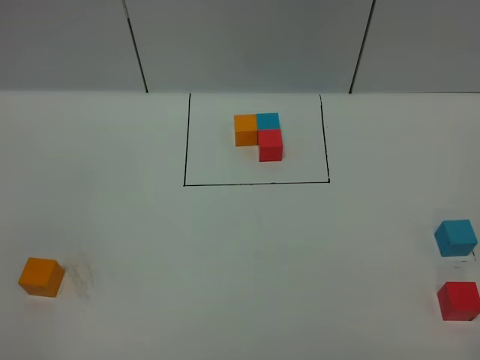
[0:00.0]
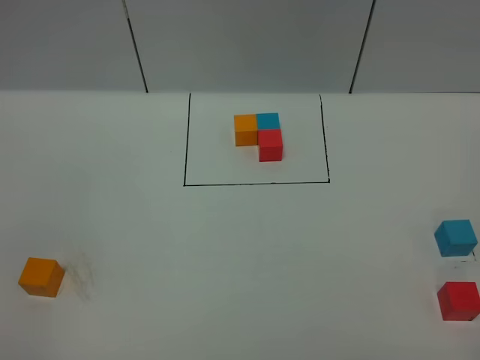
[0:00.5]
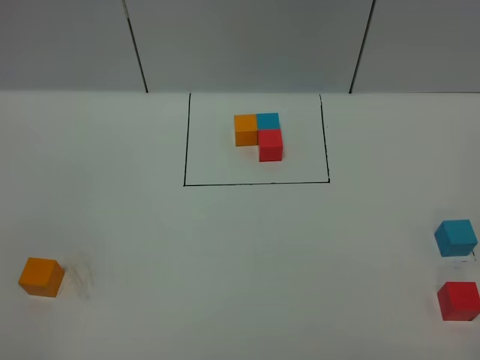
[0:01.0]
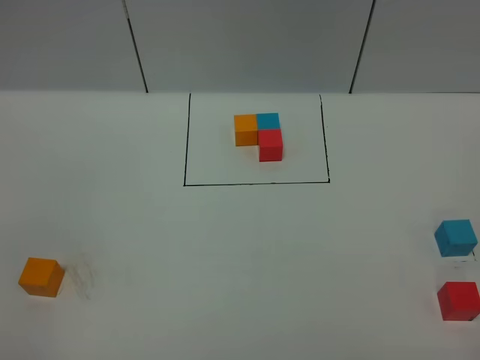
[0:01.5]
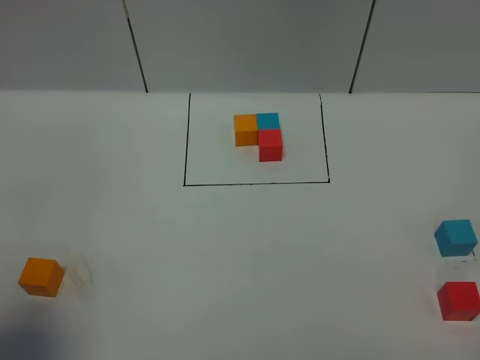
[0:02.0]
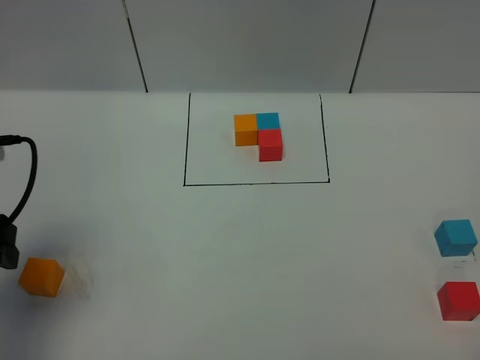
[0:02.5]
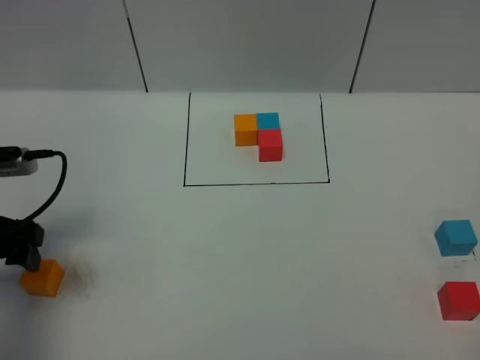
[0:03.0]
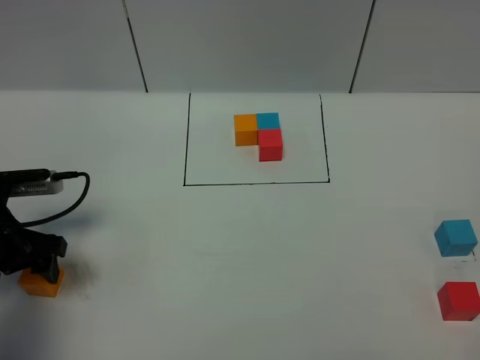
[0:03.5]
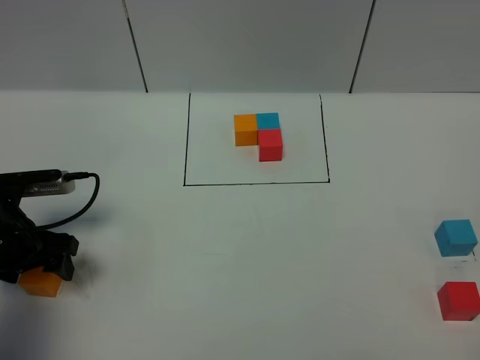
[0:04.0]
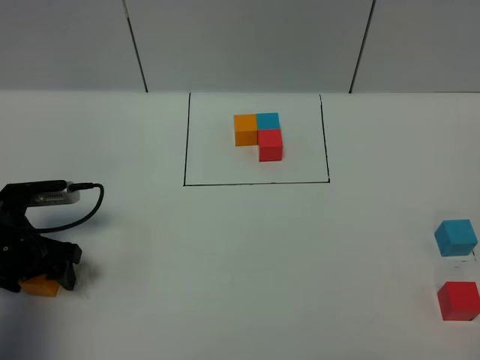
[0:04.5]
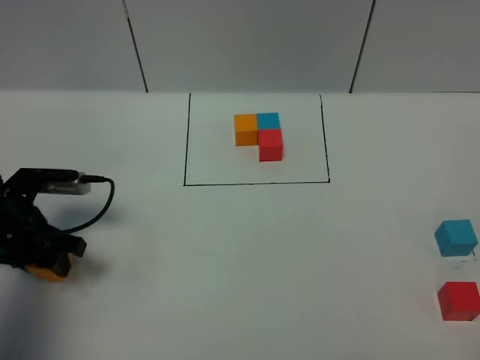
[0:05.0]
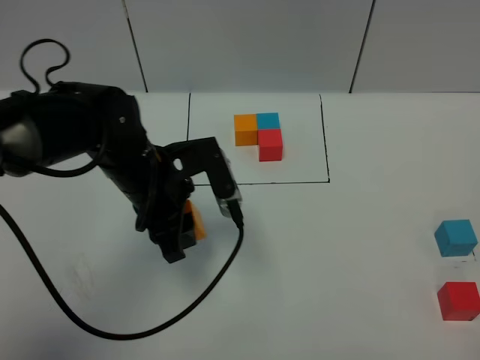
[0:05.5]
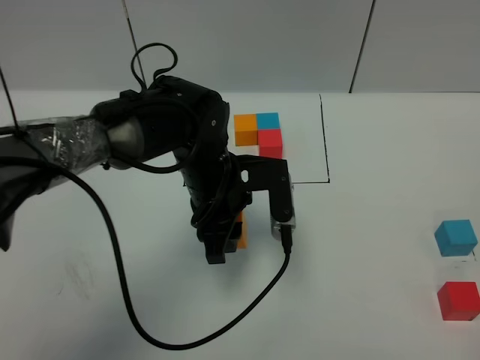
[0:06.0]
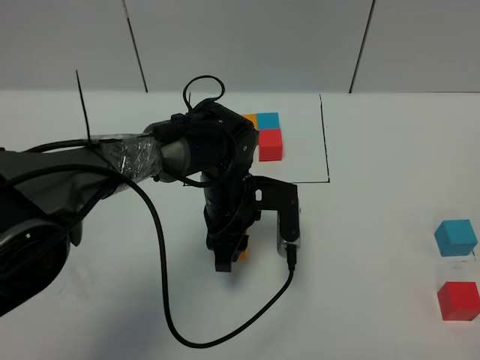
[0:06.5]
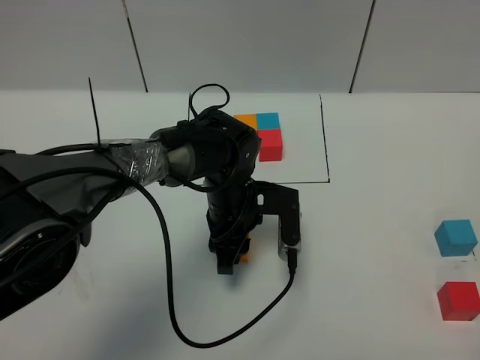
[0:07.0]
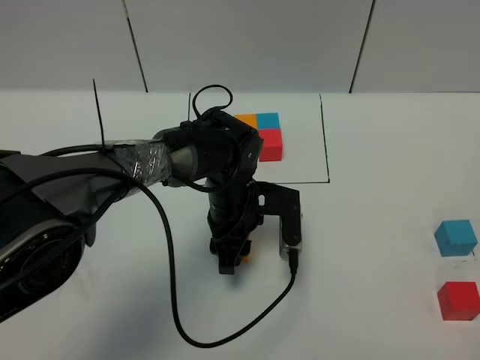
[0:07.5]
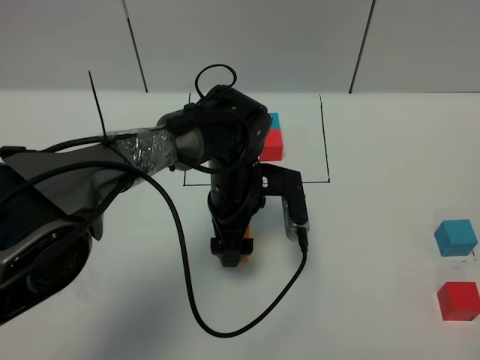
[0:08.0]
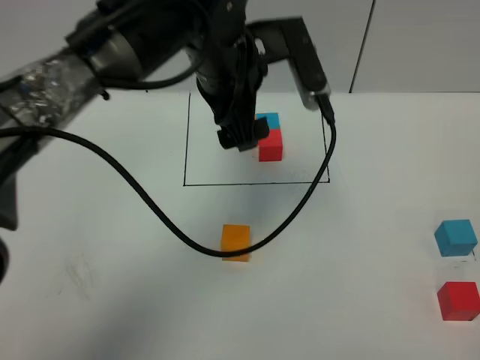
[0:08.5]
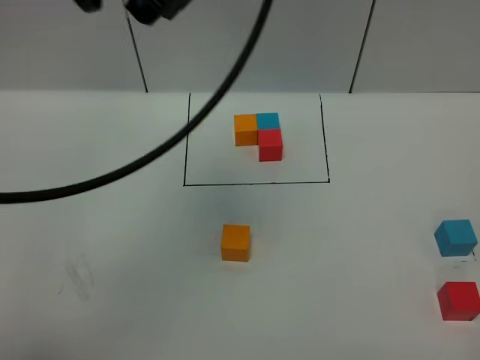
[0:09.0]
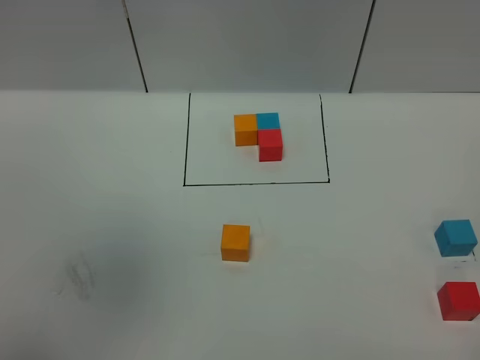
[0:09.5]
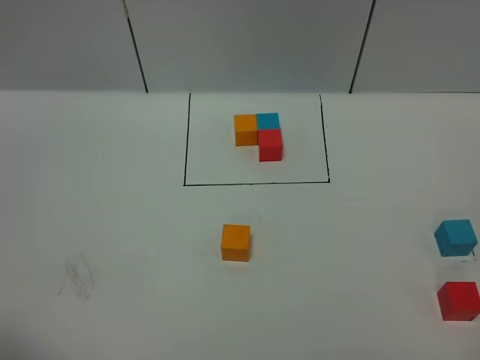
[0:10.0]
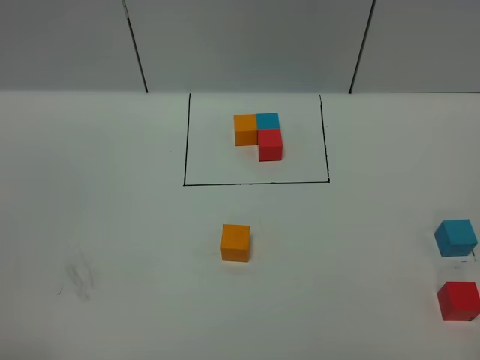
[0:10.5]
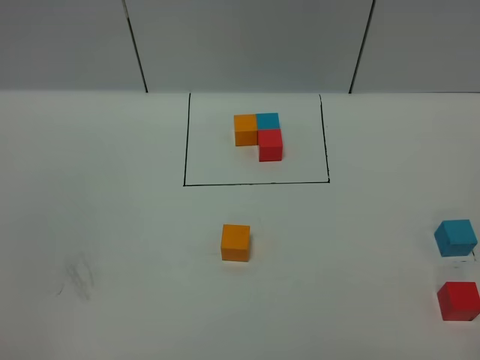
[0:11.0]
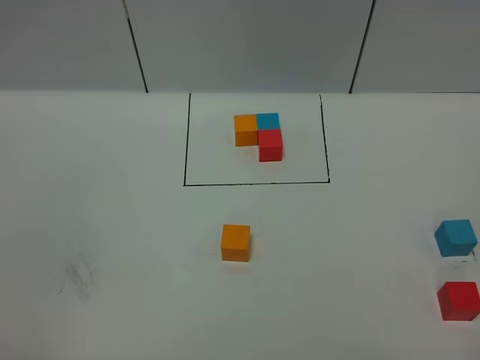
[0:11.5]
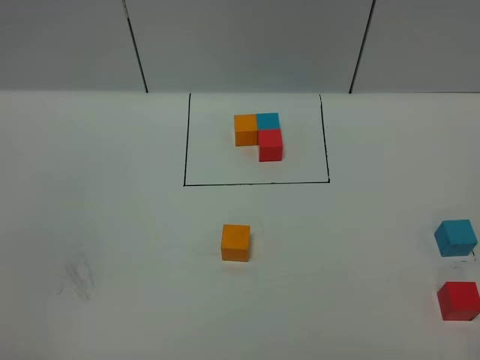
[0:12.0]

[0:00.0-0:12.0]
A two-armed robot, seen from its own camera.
Task of the whole recording: According to the building block template in front, assemble the scattered blocks together.
Step, 0:02.5 to 0:08.0: Put the orange cube in the center of the table.
0:00.0 to 0:02.0: The left gripper heads forward, covering some 10 cm, and opens up.
0:02.0 to 0:04.0: The left gripper is displaced downward and forward by approximately 25 cm.
0:04.0 to 0:06.0: The left gripper heads to the right, covering about 25 cm, and closes its fingers.
0:06.0 to 0:08.0: The left gripper moves some 5 cm, and opens its fingers.
0:08.0 to 0:10.0: The left gripper goes roughly 50 cm backward, to the left and upward.

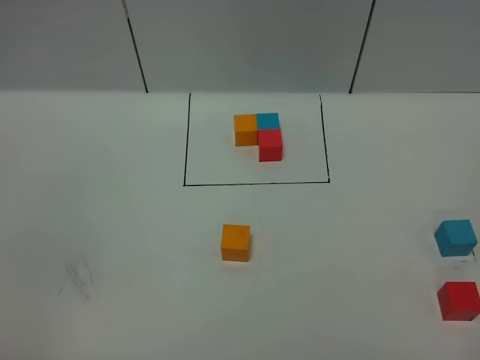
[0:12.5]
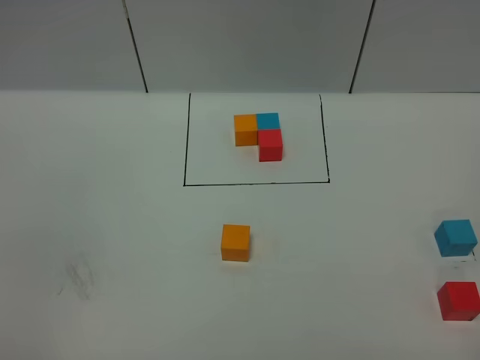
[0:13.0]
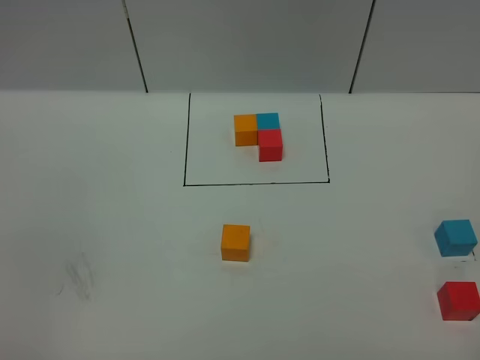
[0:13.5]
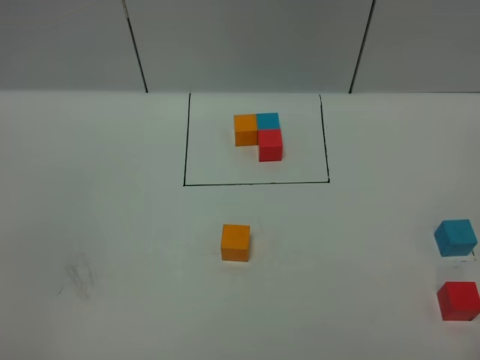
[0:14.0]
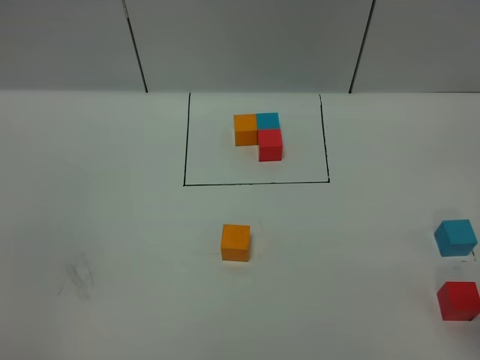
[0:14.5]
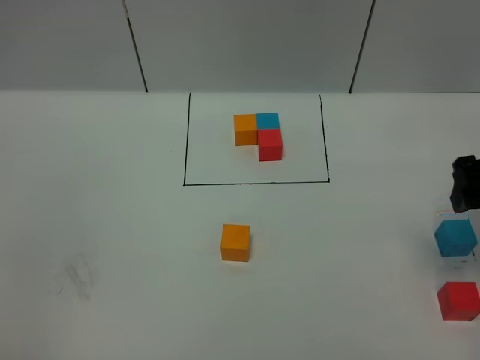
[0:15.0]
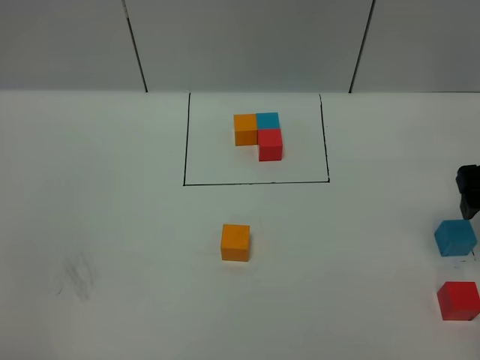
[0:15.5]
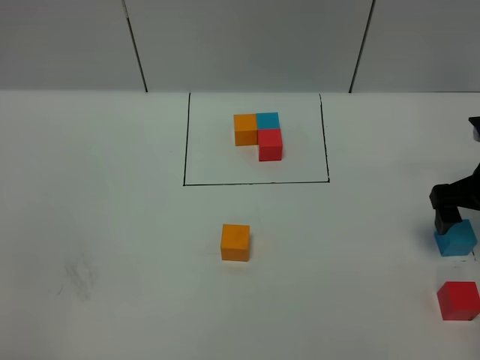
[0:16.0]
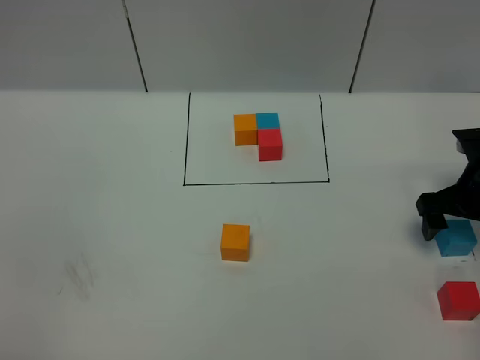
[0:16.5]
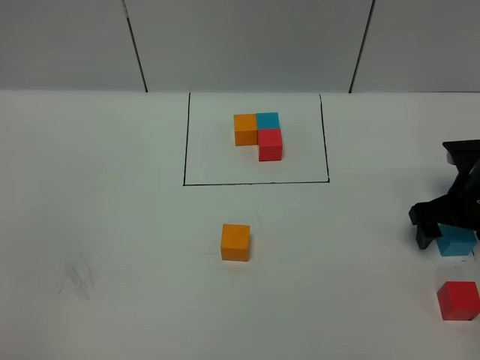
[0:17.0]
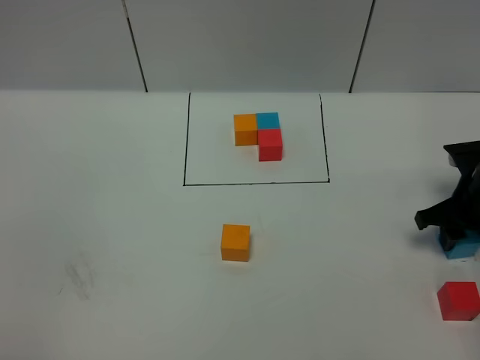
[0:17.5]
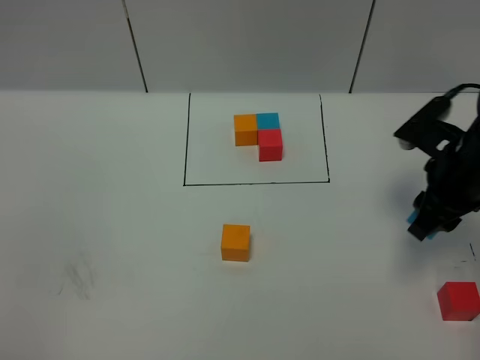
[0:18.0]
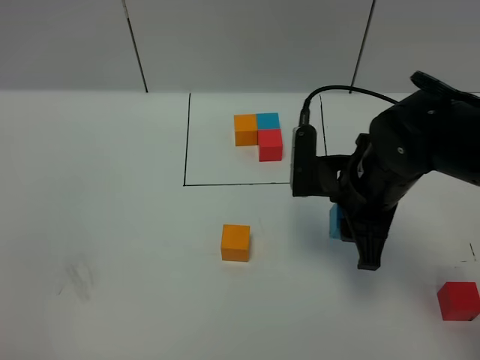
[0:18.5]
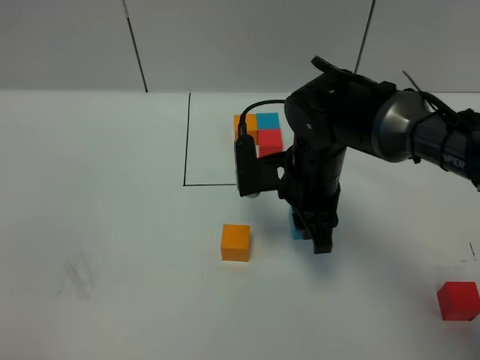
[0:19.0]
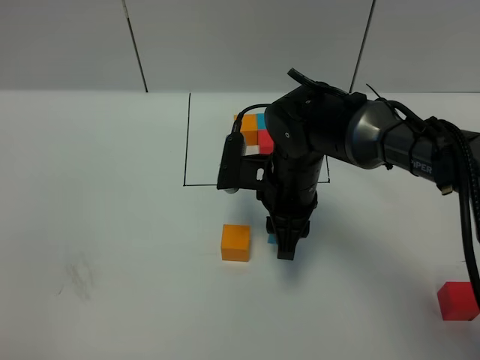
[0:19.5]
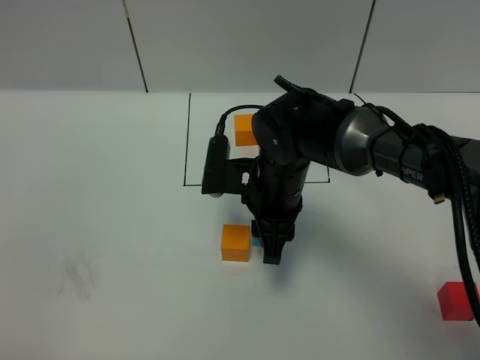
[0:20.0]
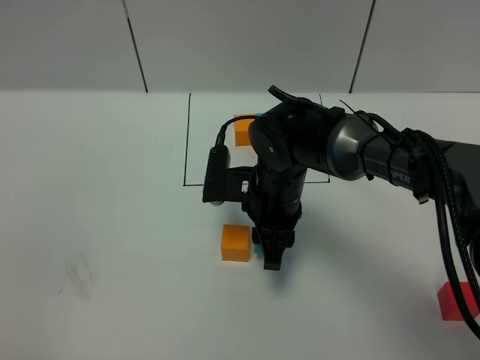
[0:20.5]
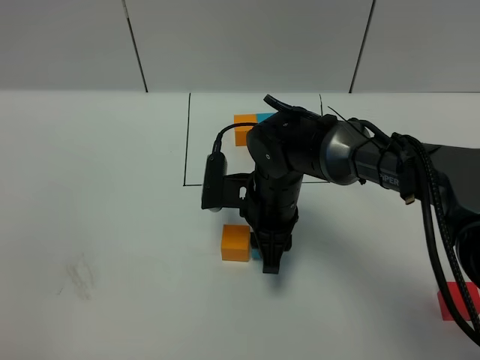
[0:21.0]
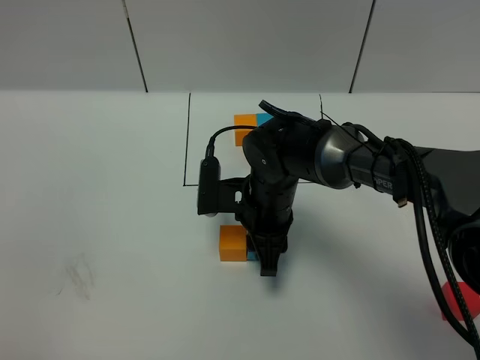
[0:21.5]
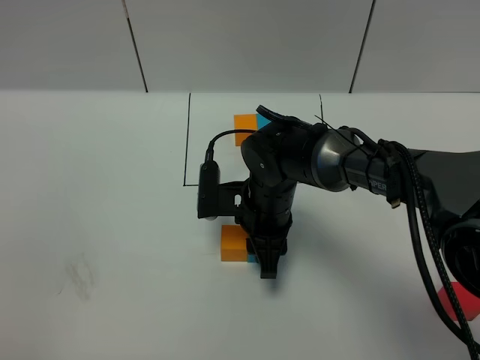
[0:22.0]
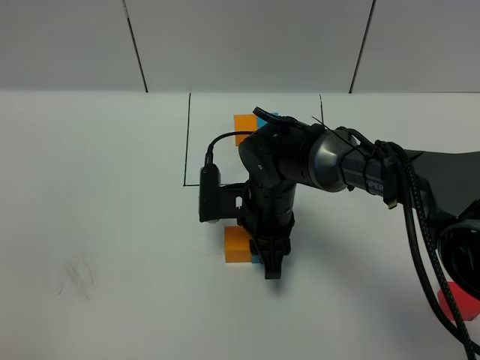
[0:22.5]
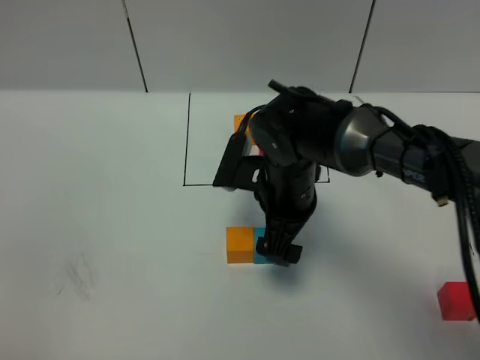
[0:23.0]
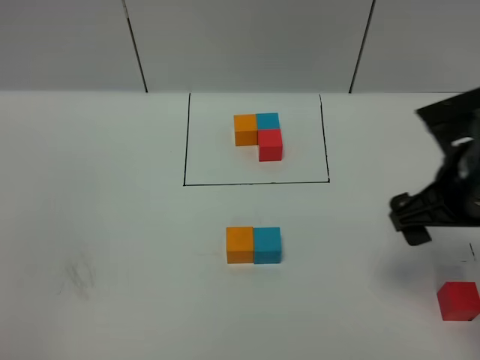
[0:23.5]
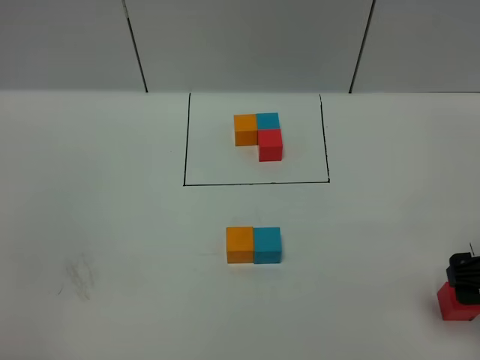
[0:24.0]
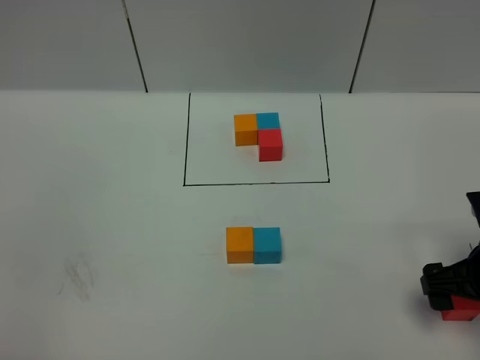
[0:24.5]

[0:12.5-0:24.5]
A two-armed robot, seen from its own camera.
Task of the whole recording: According to the building block template in front, assemble the scattered blocks together.
Step, 0:12.5 to 0:22.5: Put the blue cube on the right of the orange cube.
0:14.5 to 0:16.5: The right gripper goes approximately 25 cm forward and downward.
0:16.5 to 0:18.5: The right gripper moves to the left, roughly 15 cm, and closes up.
0:18.5 to 0:20.5: The right gripper travels to the left and downward by some 10 cm.
0:20.5 to 0:22.5: The grippers move only a little.
0:22.5 to 0:24.5: The right gripper heads to the right and backward, covering roughly 25 cm, and opens up.

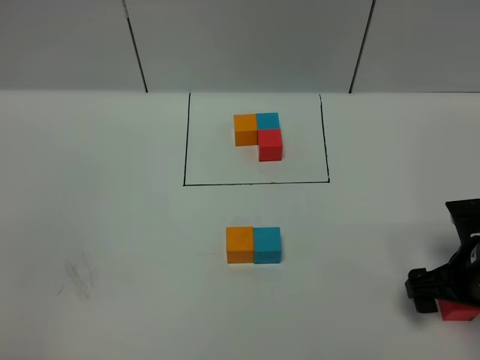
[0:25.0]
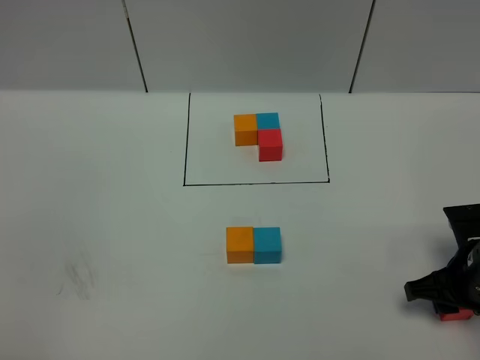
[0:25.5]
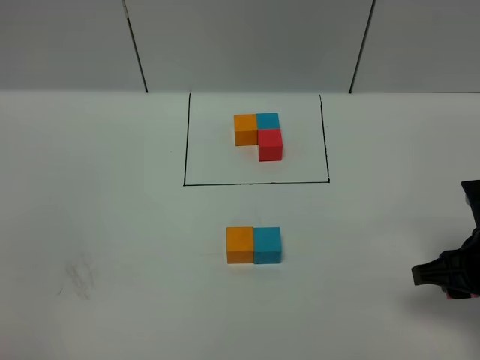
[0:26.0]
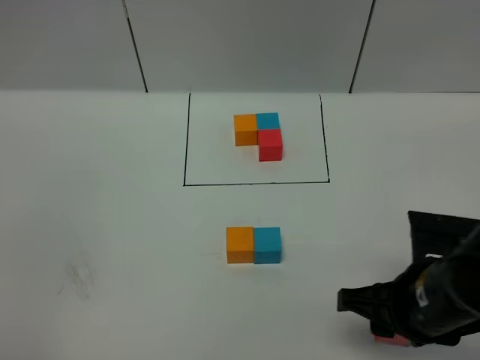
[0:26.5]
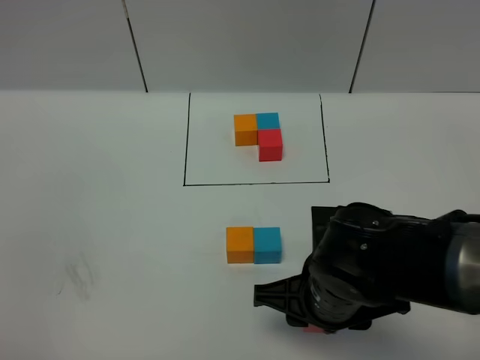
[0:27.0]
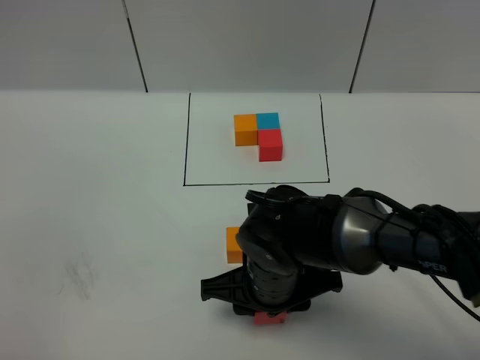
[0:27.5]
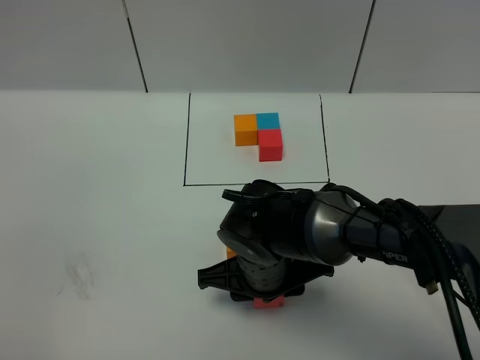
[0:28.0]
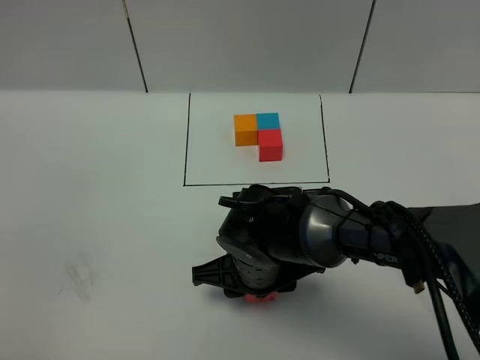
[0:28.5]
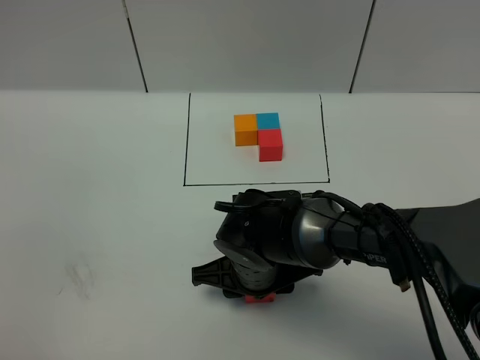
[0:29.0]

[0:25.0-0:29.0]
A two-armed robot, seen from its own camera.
Task of the whole recording: According to the building block template in front, assemble the scattered blocks together.
0:25.0 to 0:27.0: The right gripper is displaced to the left by some 20 cm, and closes.
0:27.0 to 0:29.0: The right gripper moves to the left, forward and downward, some 10 cm.
